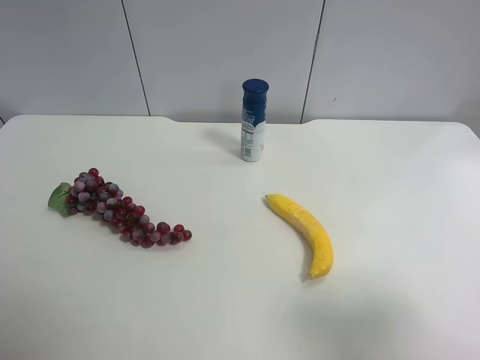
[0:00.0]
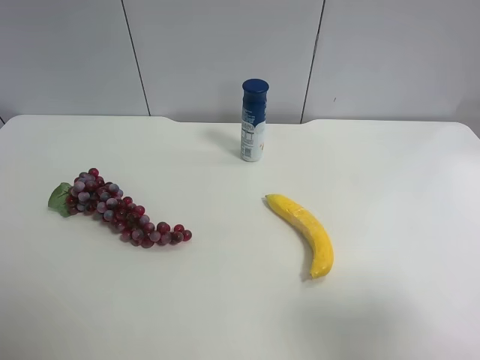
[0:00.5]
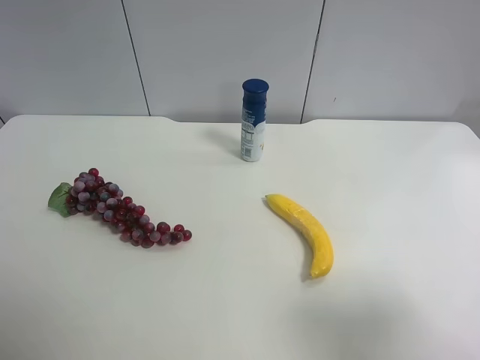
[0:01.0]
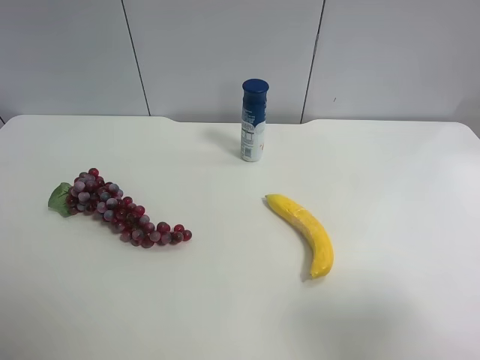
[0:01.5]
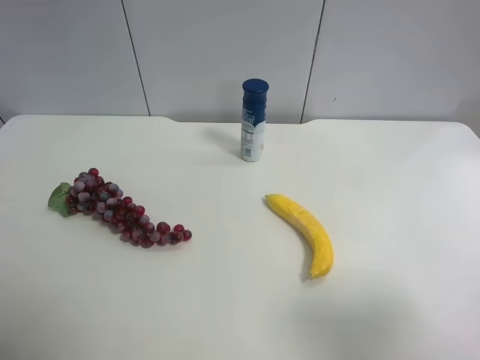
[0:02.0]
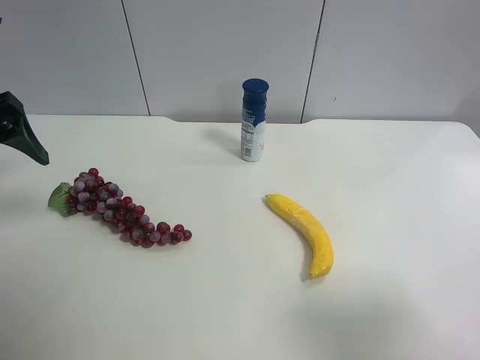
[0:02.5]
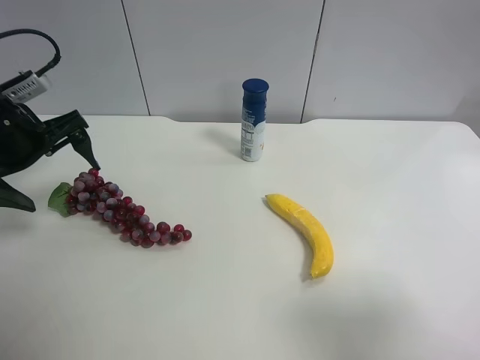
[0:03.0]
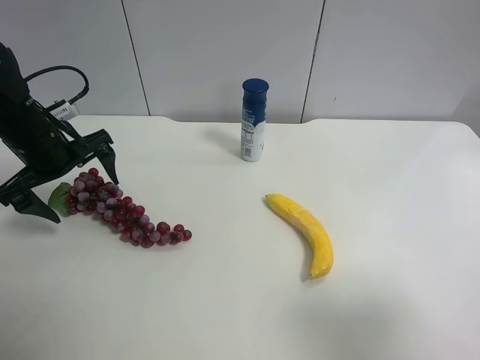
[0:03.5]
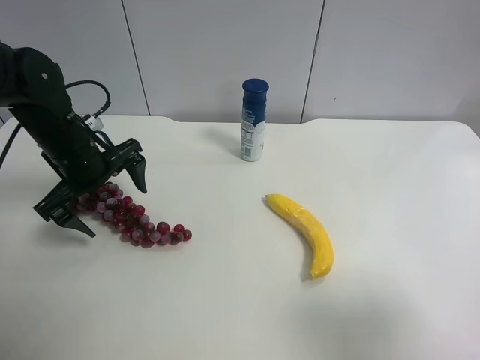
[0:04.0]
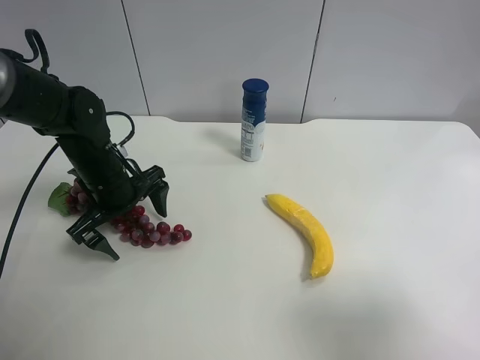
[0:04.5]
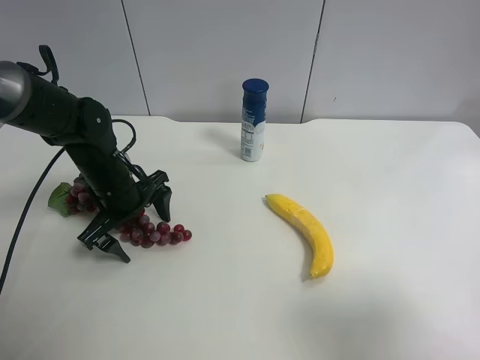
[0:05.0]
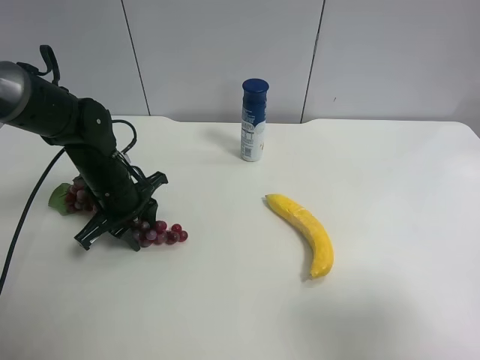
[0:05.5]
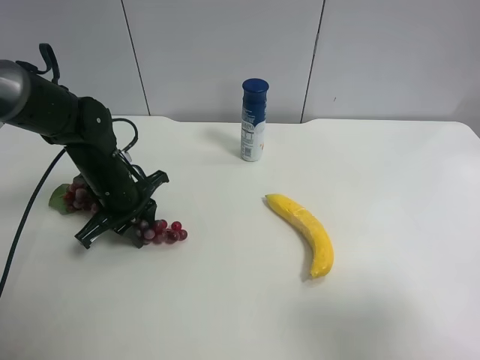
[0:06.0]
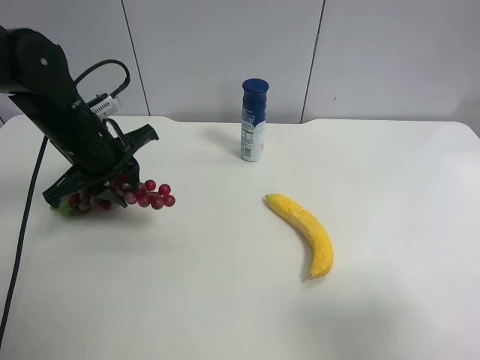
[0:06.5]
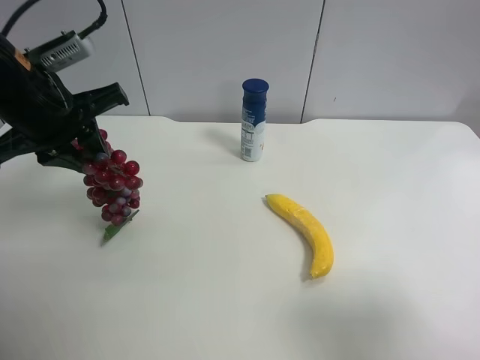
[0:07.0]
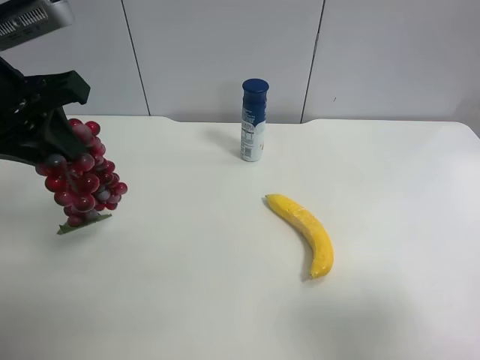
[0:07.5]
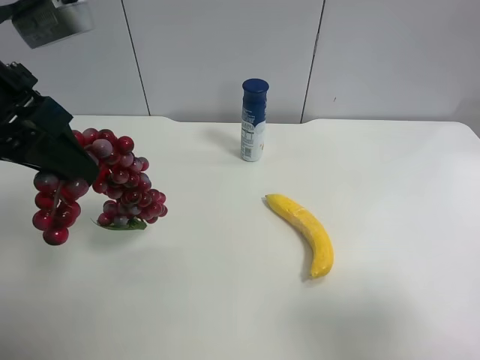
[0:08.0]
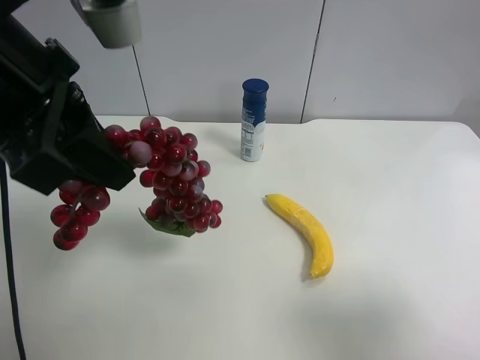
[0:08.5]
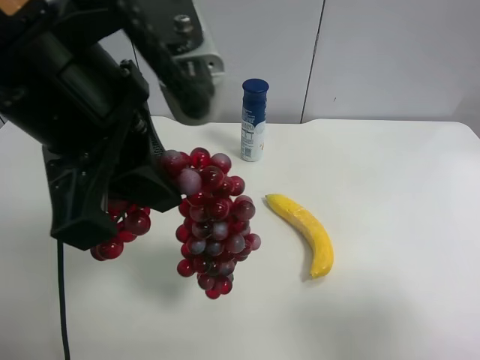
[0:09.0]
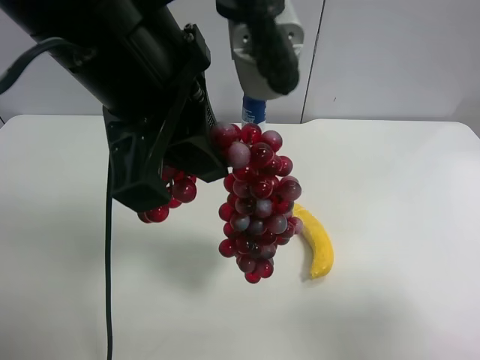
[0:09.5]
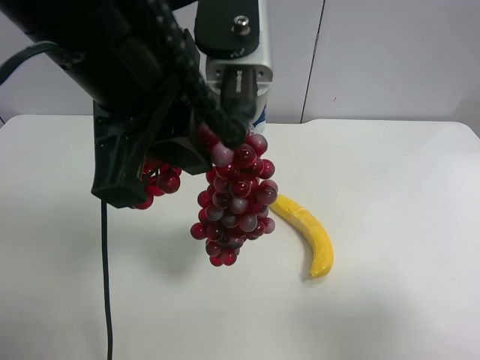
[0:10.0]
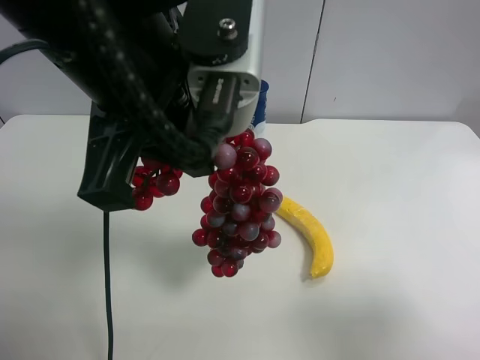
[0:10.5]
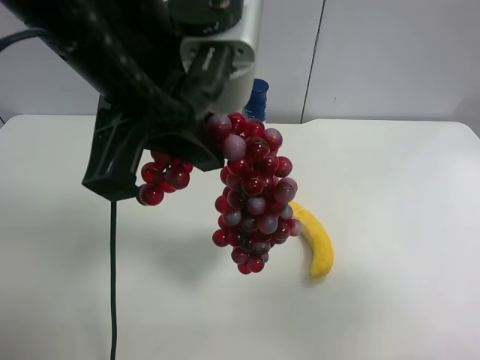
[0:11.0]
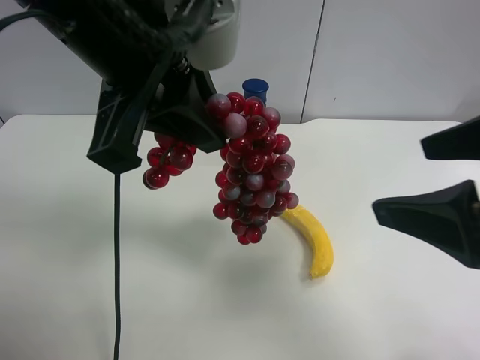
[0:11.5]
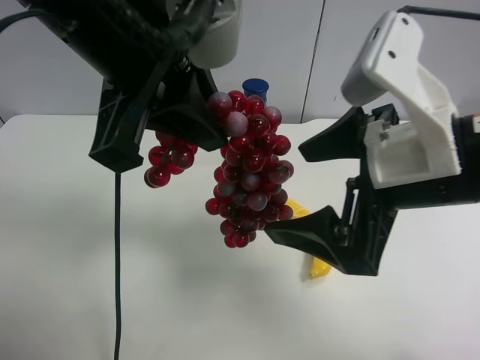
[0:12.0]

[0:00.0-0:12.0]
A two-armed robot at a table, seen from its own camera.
Task of the whole recording: use the left gripper to pick up the item and transfer it from the left gripper to the right gripper.
0:02.0 to 0:04.0: The left gripper heads downward, forward and to the right, covering some 30 cm.
0:04.0 to 0:06.0: The left gripper moves downward, some 5 cm, and closes.
0:06.0 to 0:08.0: The left gripper travels upward and backward by approximately 25 cm.
0:08.0 to 0:10.0: The left gripper is displaced to the right by approximately 15 cm.
0:10.0 to 0:12.0: The right gripper moves forward and to the left, about 20 cm.

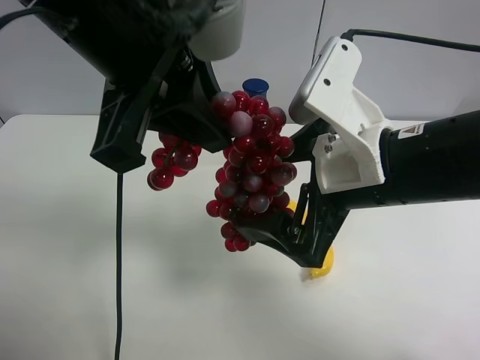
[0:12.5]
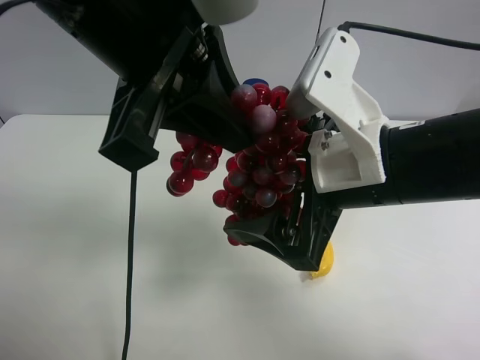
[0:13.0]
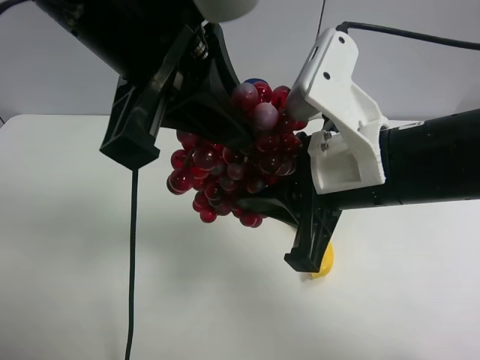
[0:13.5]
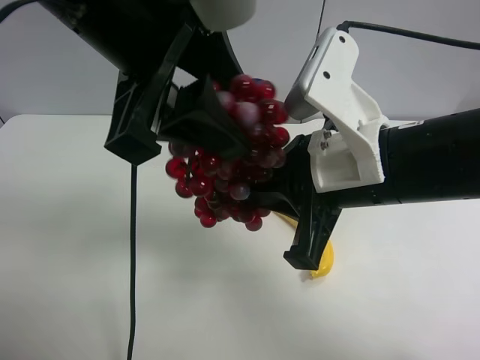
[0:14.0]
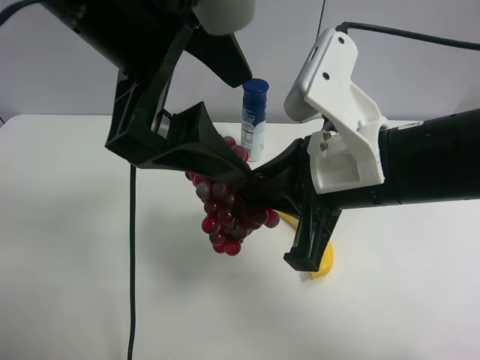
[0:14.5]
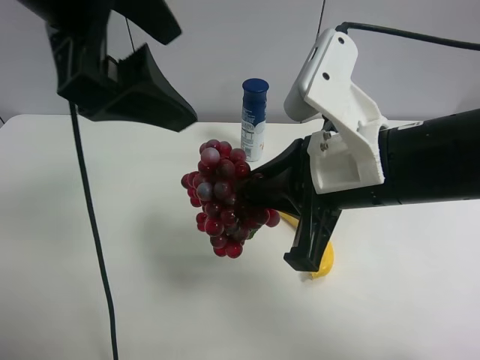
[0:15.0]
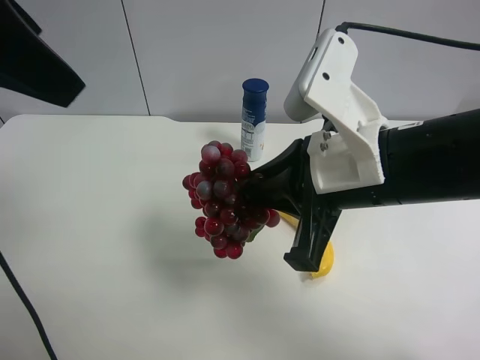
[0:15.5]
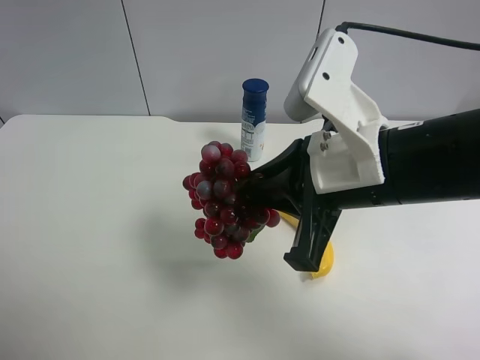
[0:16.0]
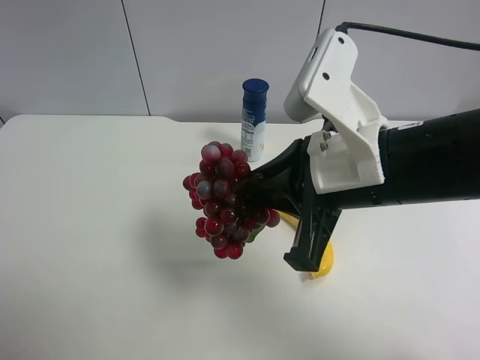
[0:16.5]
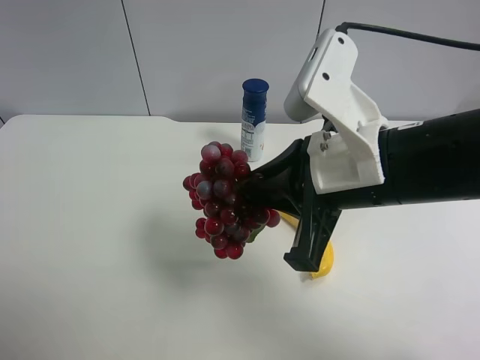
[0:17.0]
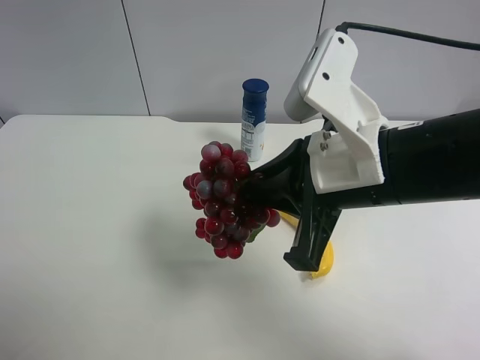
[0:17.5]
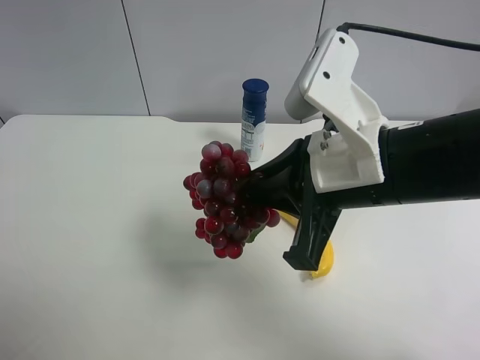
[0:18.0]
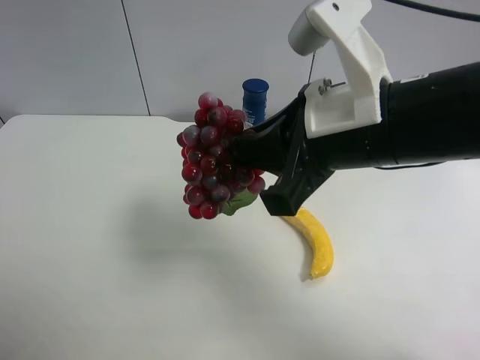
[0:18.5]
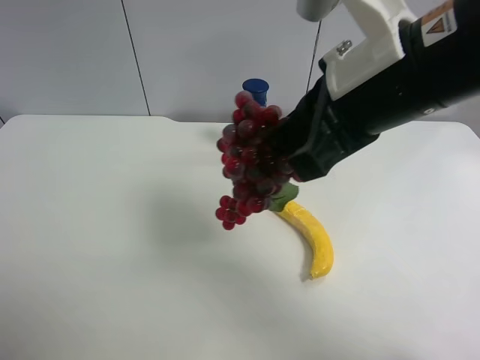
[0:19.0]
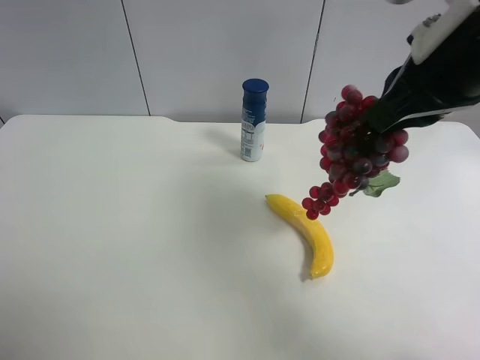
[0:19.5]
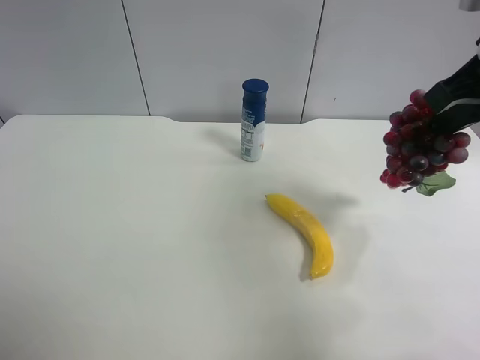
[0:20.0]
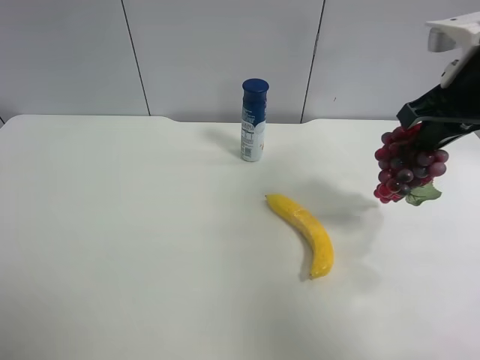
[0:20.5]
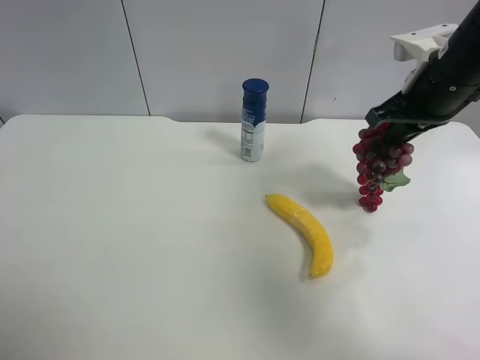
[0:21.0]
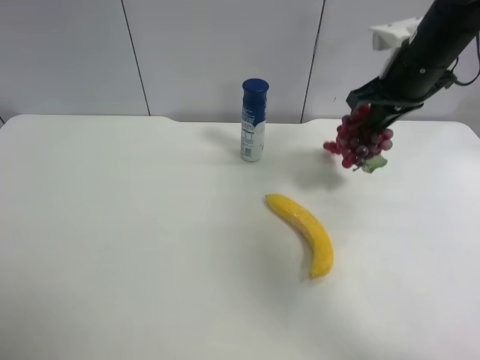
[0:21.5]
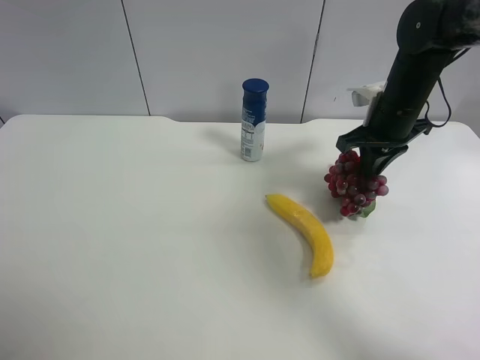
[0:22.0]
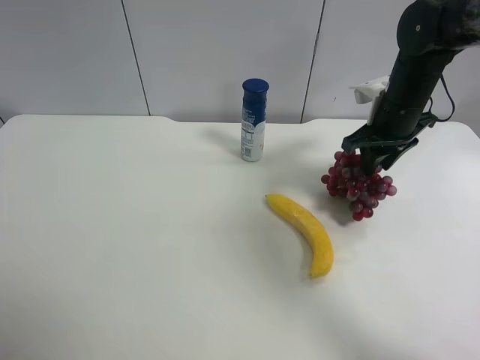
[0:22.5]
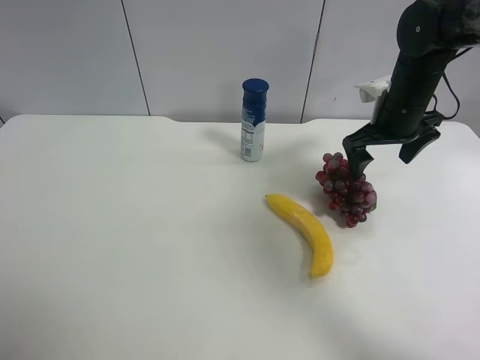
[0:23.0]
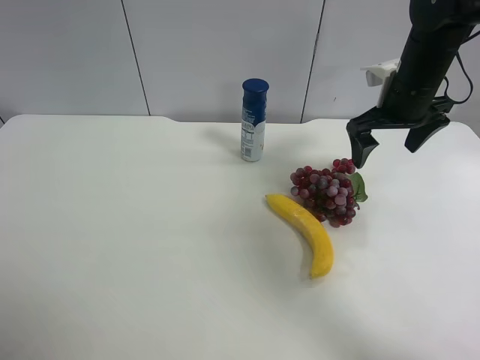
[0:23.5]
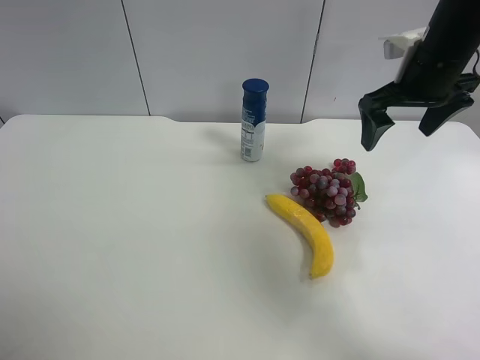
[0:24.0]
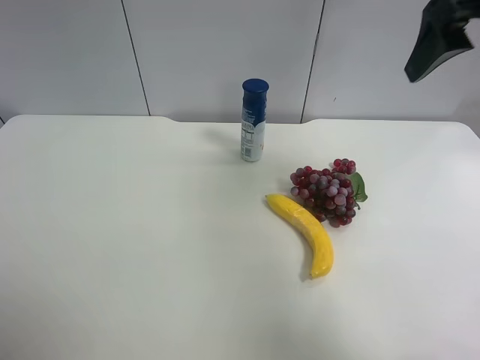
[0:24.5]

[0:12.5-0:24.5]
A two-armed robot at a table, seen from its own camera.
Task of the whole recording: use the left gripper to pick up the item and transfer it from the left gripper to the right gripper.
0:12.5 to 0:14.5: The left gripper opens its fingers. Meanwhile the right gripper closes.
0:14.5 to 0:16.5: The left gripper goes approximately 30 cm to the left and backward.
0:18.5 to 0:20.5: The right gripper is displaced to the right and forward by roughly 15 cm.
0:20.5 to 0:22.5: The right gripper shifts some 15 cm forward and downward, and opens.
0:22.5 to 0:24.5: The right gripper moves upward and backward, about 25 cm, and opens up.

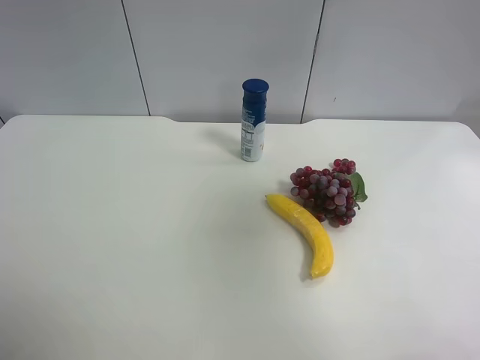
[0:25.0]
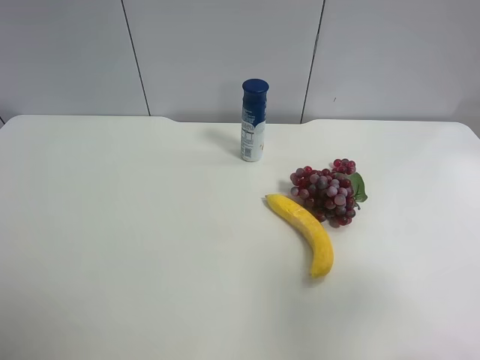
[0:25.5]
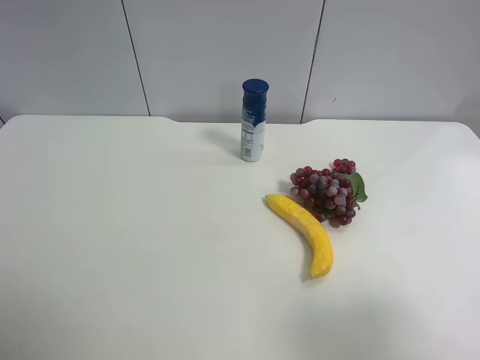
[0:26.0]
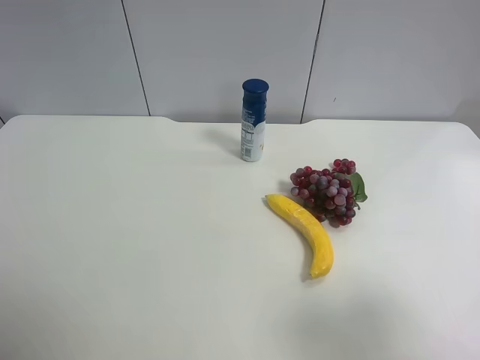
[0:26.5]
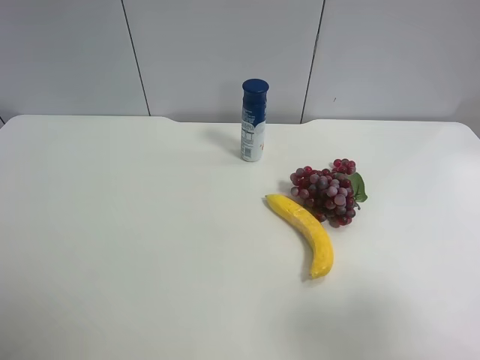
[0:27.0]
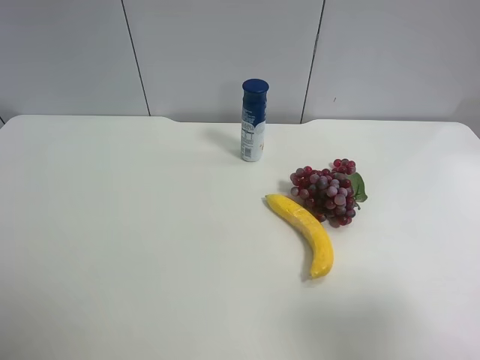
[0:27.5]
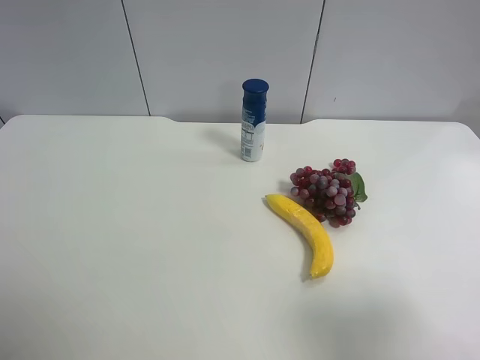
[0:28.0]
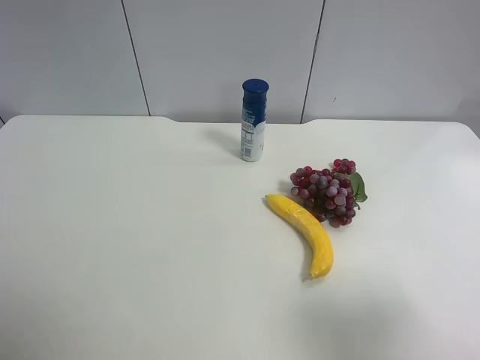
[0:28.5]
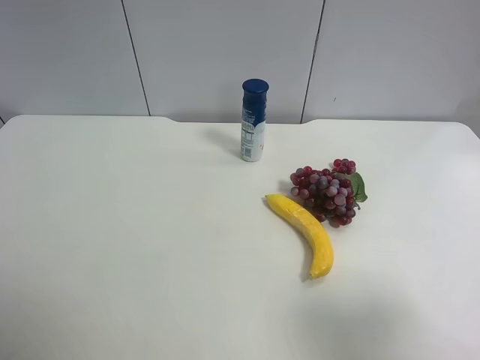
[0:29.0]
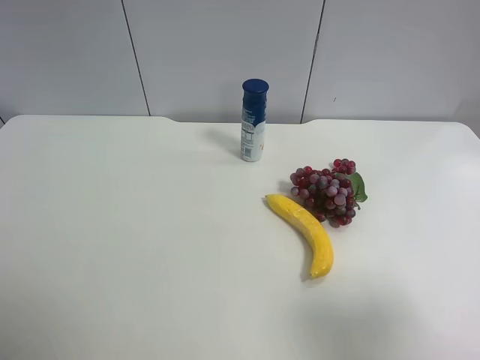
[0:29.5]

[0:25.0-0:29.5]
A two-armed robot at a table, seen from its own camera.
Task of the whole recording: use the left gripper to pick up the item and transfer it from the left gripper to the right gripper.
0:25.0 to 0:27.0: The right gripper goes some 20 cm downward and backward.
